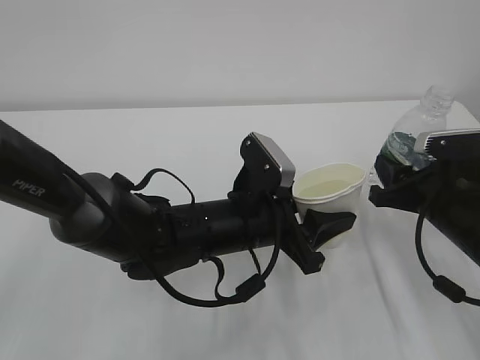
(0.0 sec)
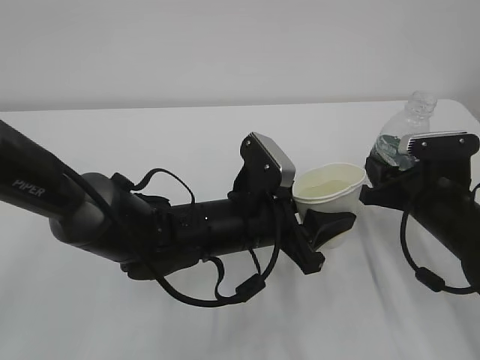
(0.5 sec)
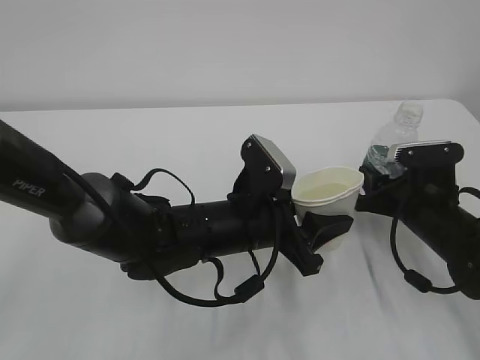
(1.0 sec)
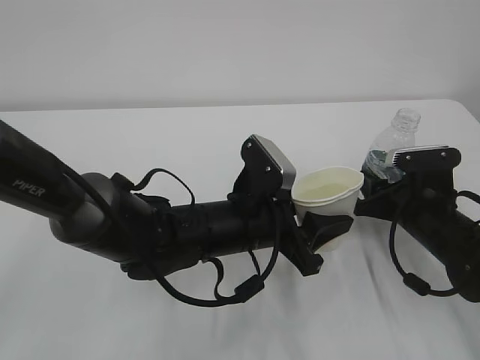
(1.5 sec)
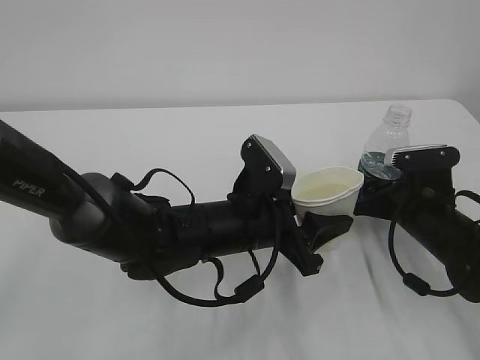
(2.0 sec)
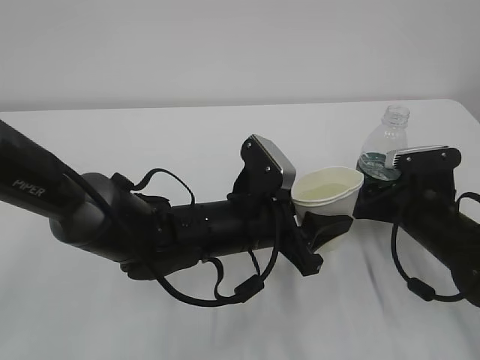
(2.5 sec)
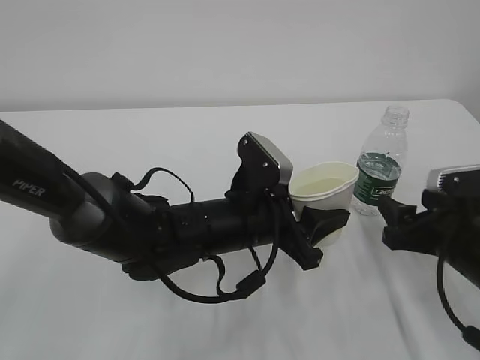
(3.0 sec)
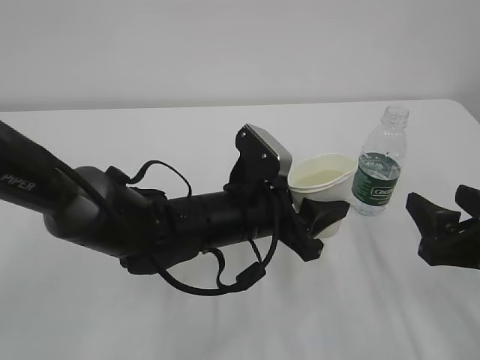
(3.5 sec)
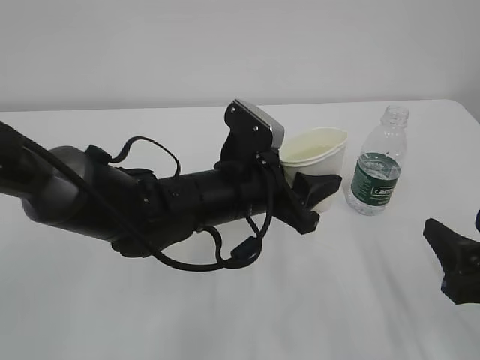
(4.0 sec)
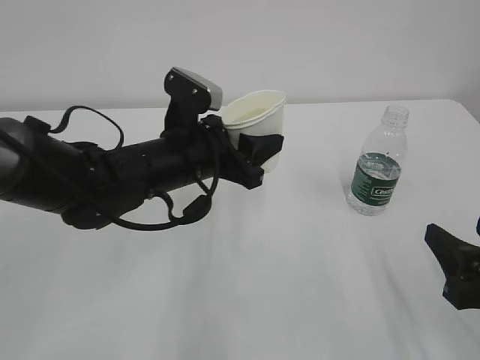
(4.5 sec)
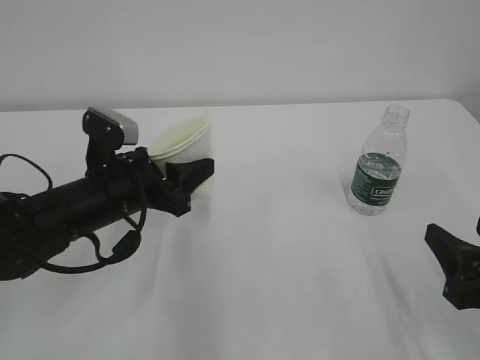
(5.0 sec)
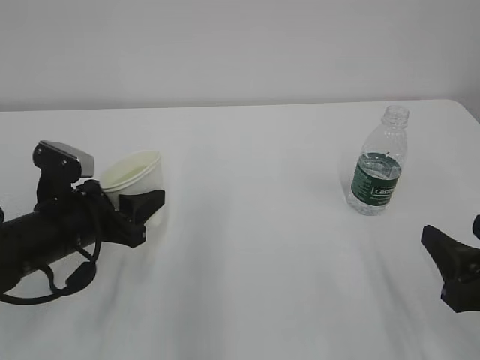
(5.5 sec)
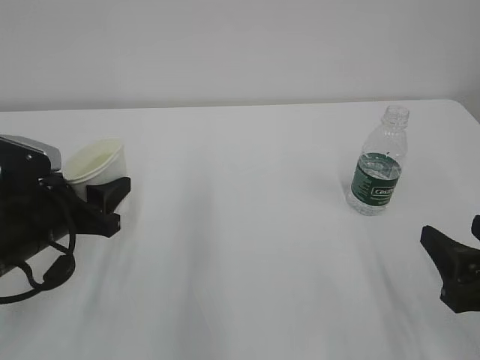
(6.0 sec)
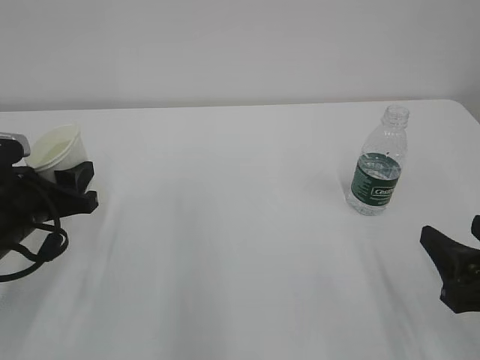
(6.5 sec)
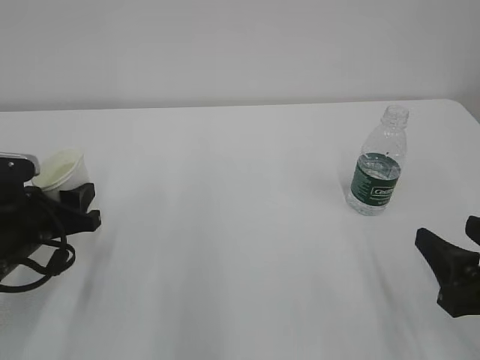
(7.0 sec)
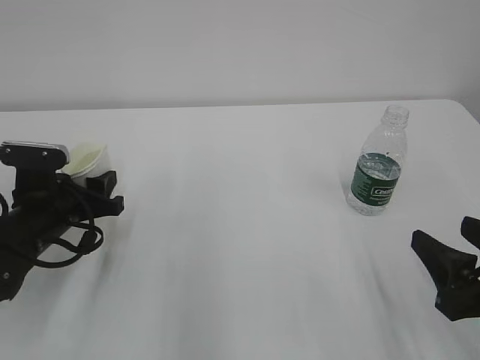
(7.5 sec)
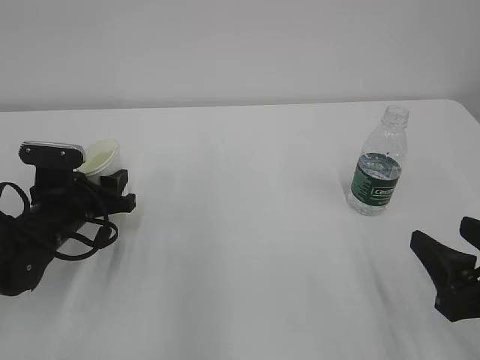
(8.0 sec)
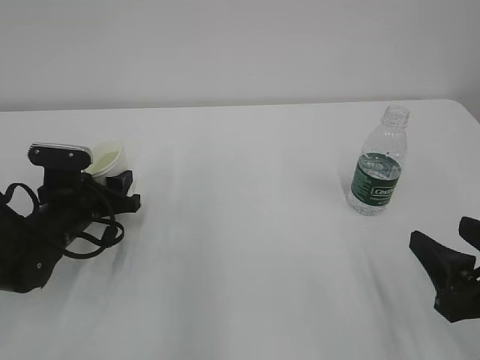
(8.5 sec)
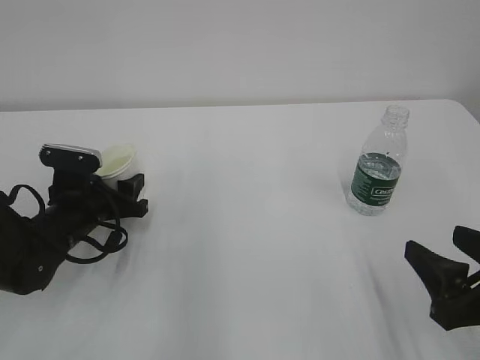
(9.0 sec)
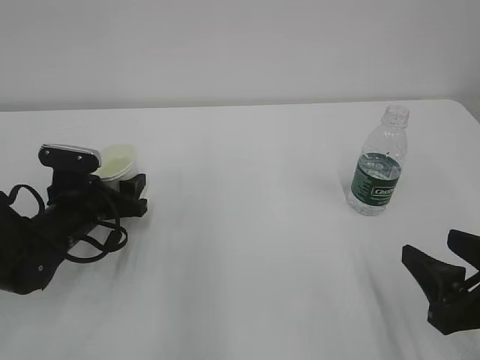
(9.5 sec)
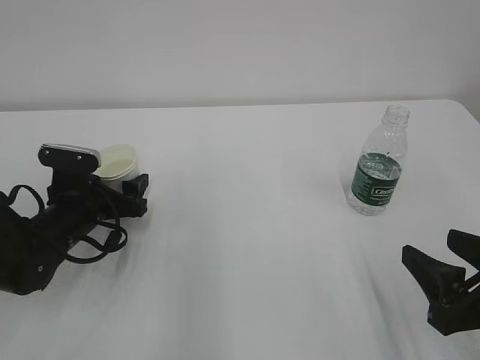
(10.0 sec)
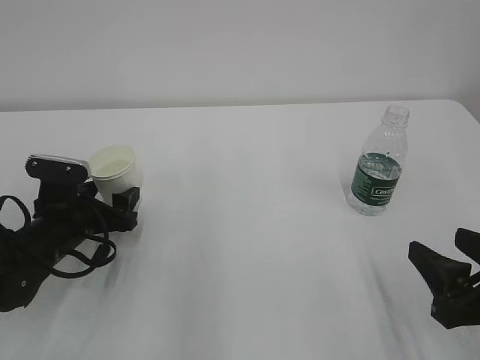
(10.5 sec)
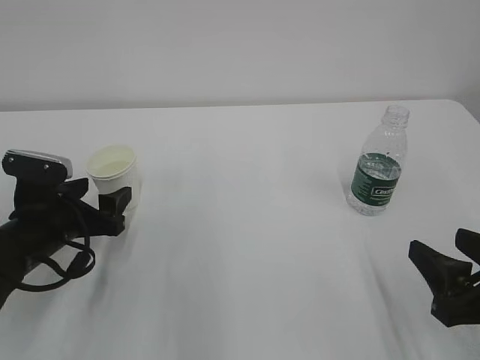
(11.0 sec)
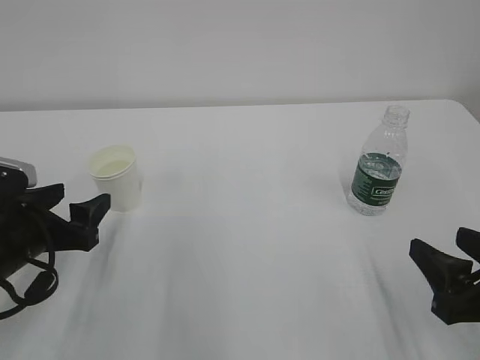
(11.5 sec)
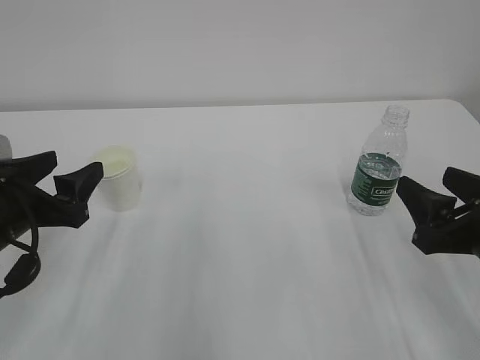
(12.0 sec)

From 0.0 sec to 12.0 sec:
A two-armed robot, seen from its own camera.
From 0.0 sec to 2.0 sec: The right gripper changes place by some 5 cm, and opens.
From 2.0 sec to 4.0 sec: The right gripper travels backward and upward by some 20 cm.
From 4.0 sec to 6.0 sec: The left gripper shifts about 20 cm to the left.
From 6.0 sec to 8.0 sec: The left gripper travels forward by roughly 5 cm.
From 8.0 sec to 10.0 sec: The left gripper opens its fingers.
From 10.0 sec to 12.0 sec: The left gripper goes approximately 15 cm backward and upward. The right gripper changes place by roughly 5 cm.

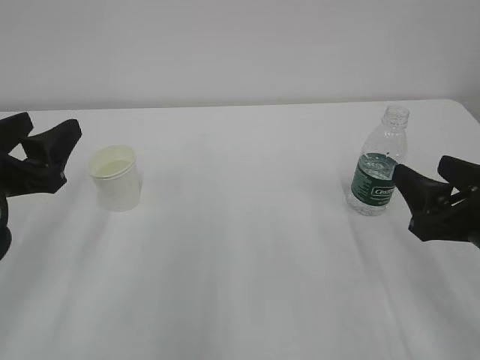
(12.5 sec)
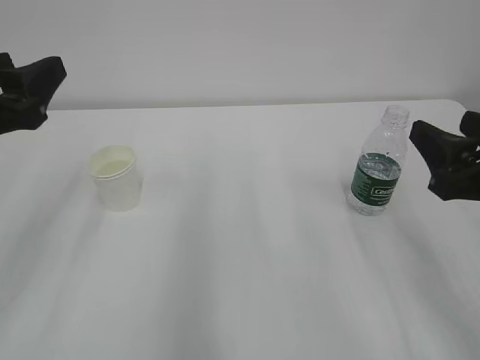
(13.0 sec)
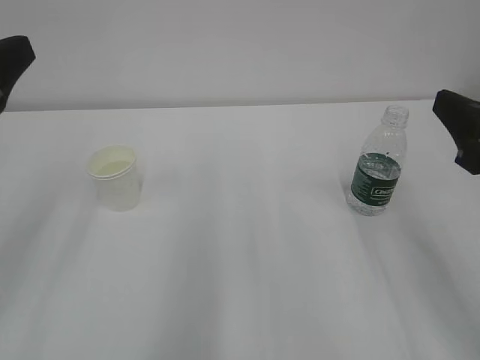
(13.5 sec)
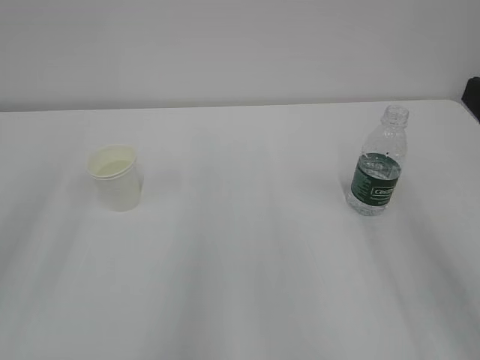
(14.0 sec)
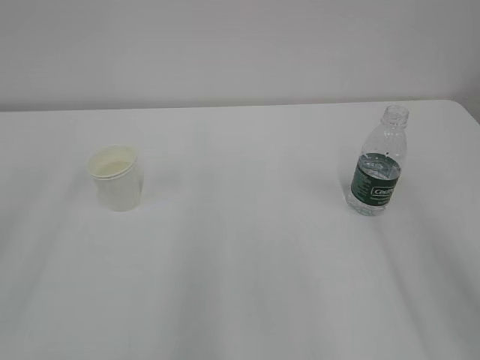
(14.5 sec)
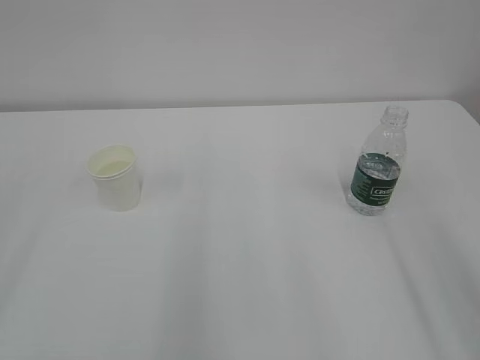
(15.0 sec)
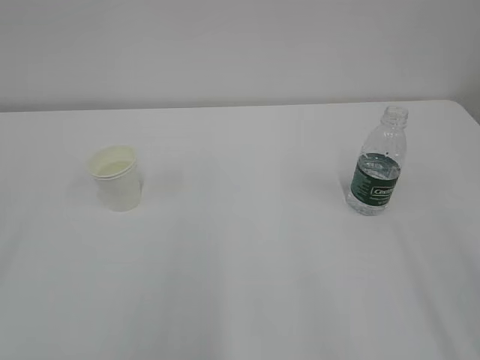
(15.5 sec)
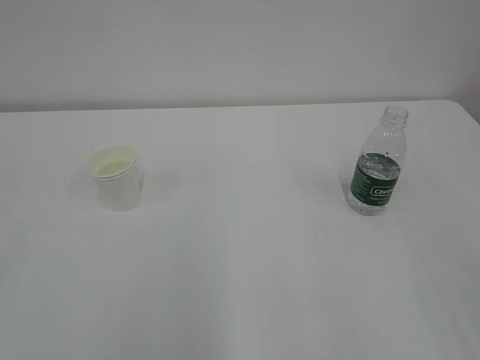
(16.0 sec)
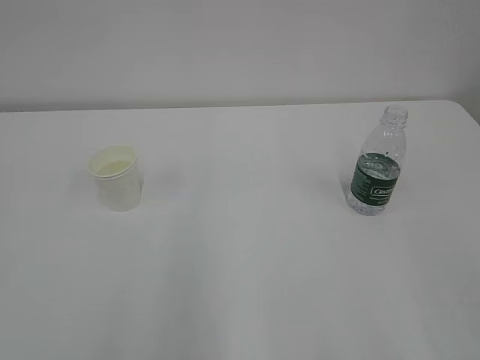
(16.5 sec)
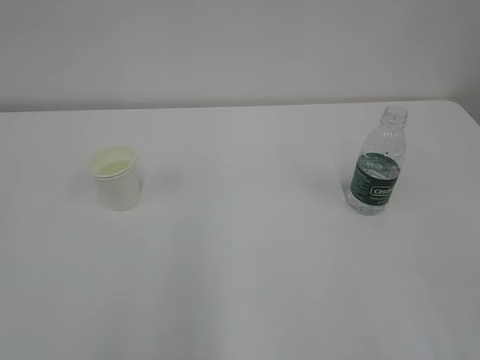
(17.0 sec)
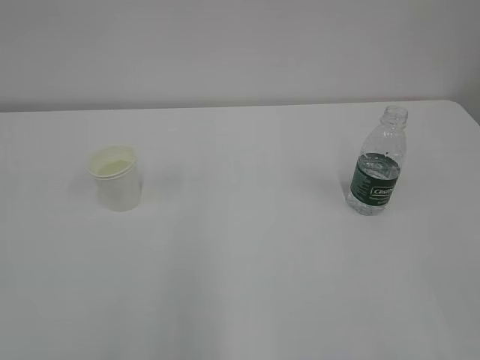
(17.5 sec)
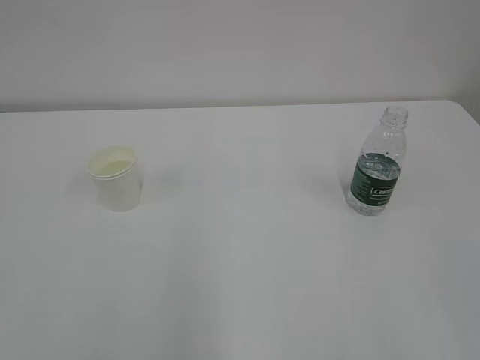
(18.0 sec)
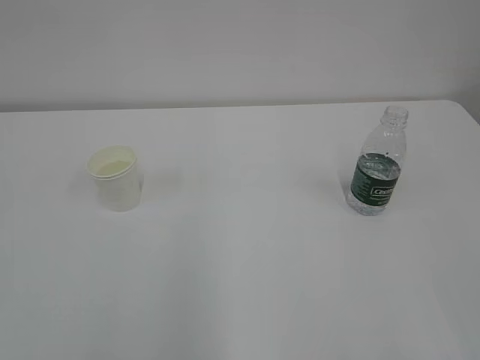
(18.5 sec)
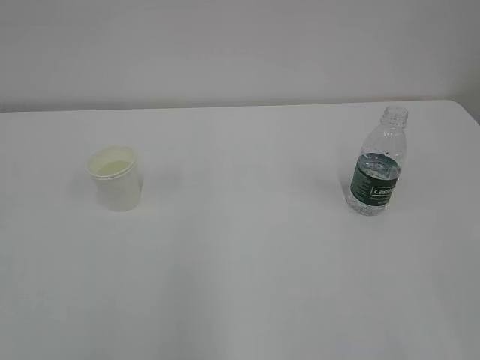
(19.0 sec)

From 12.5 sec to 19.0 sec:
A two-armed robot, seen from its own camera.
From 12.5 sec to 14.5 sec: The two grippers go about 15 cm upward and backward.
